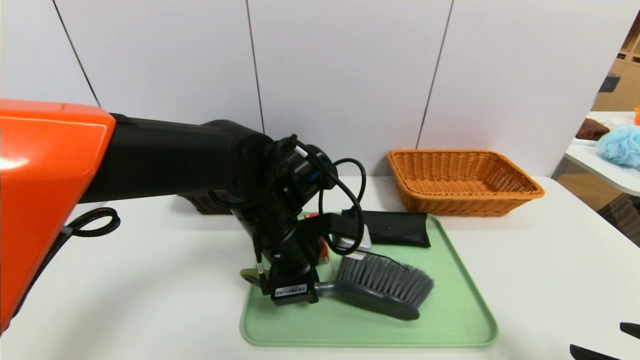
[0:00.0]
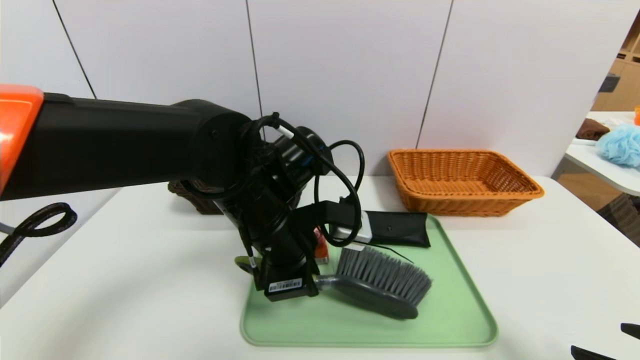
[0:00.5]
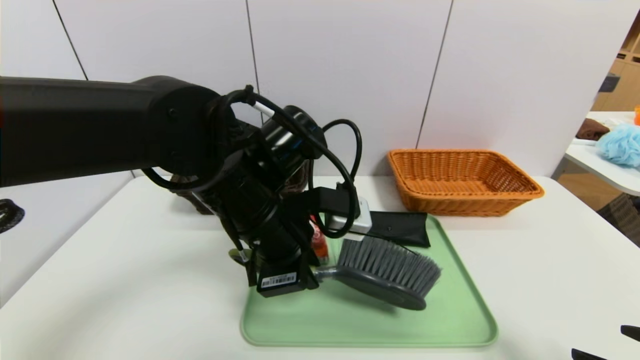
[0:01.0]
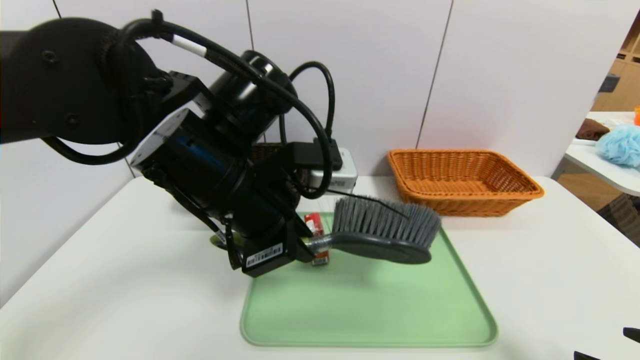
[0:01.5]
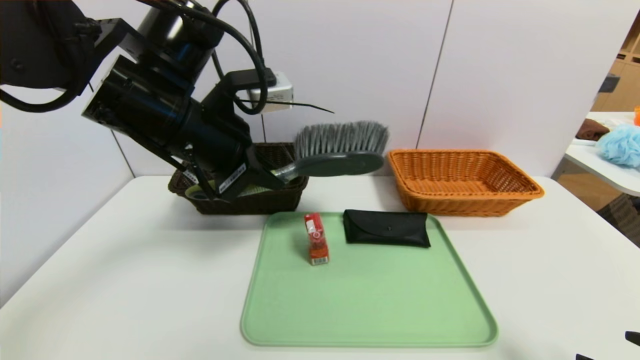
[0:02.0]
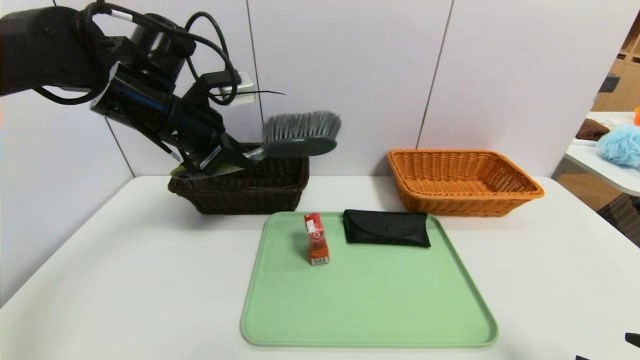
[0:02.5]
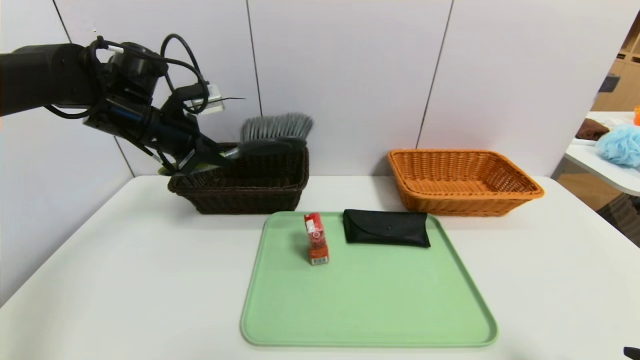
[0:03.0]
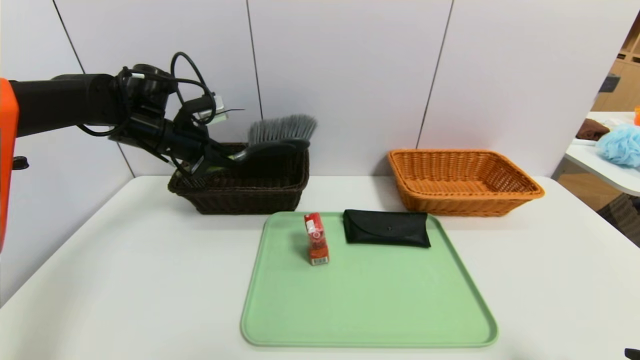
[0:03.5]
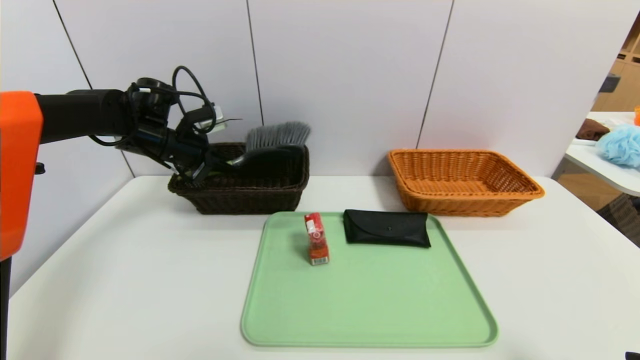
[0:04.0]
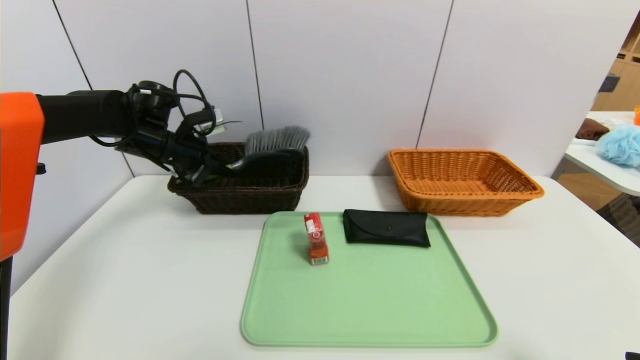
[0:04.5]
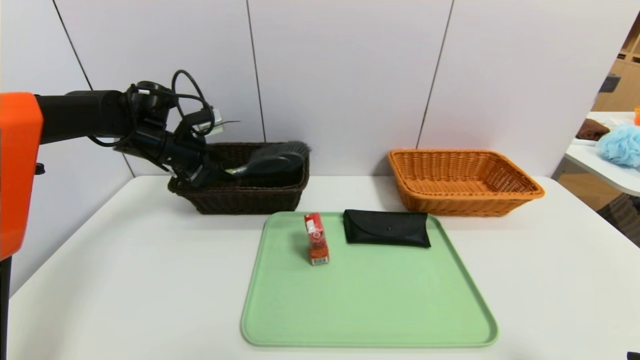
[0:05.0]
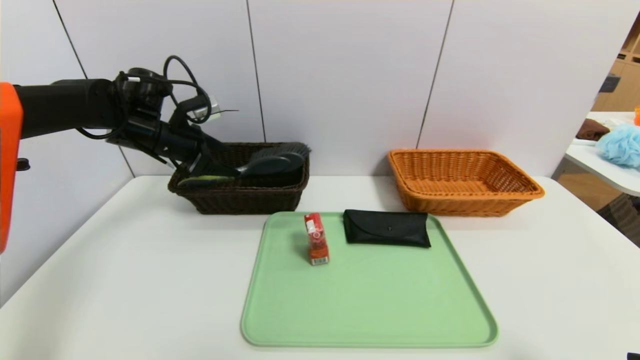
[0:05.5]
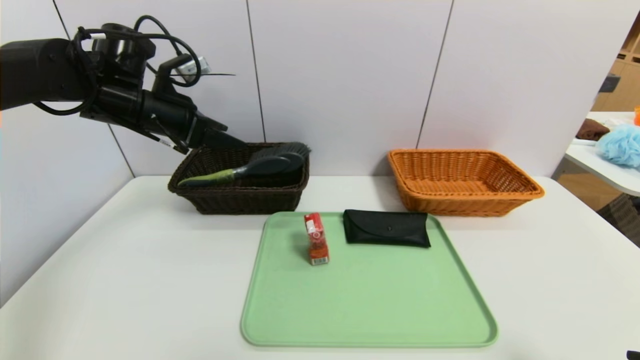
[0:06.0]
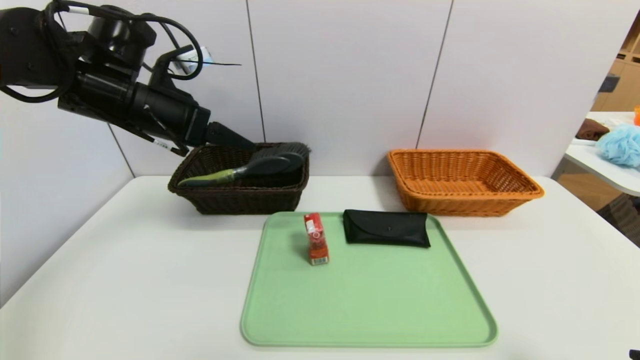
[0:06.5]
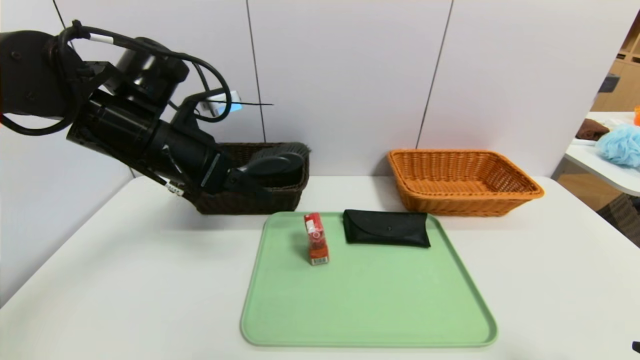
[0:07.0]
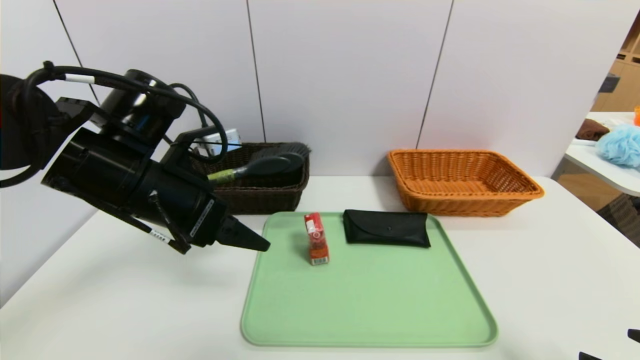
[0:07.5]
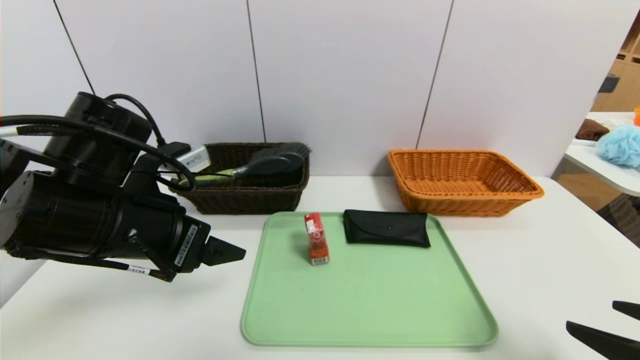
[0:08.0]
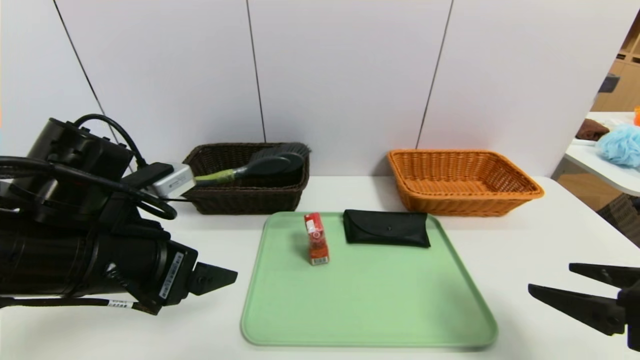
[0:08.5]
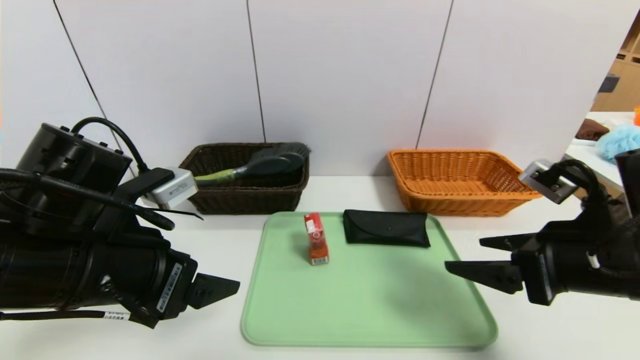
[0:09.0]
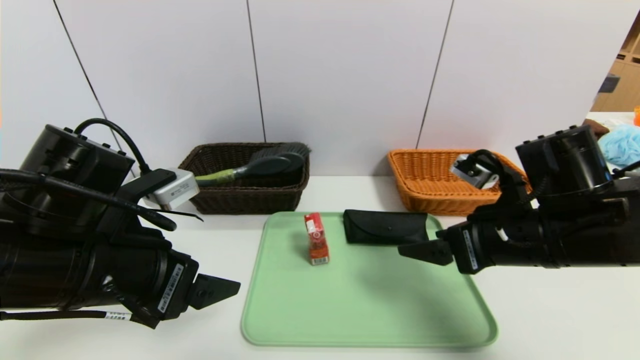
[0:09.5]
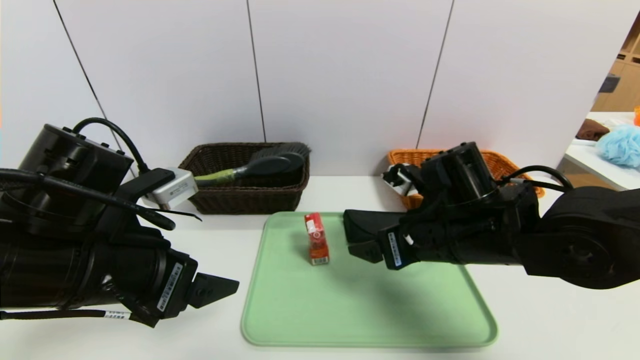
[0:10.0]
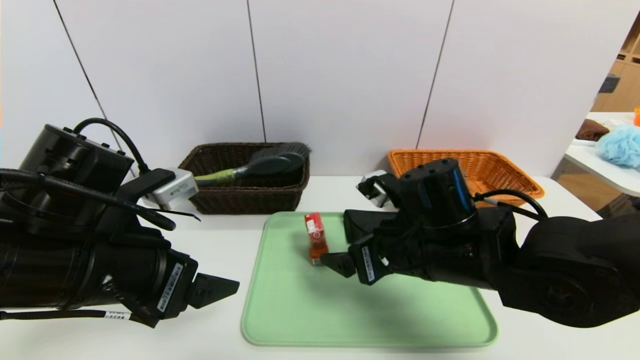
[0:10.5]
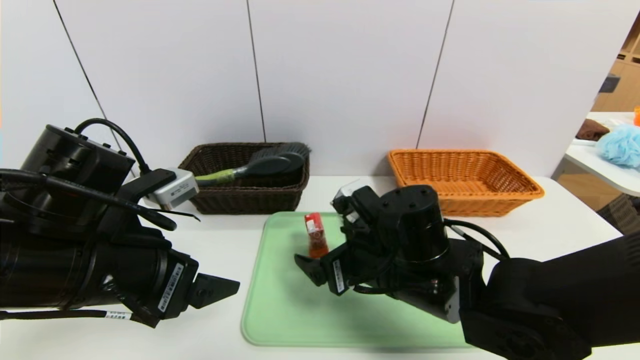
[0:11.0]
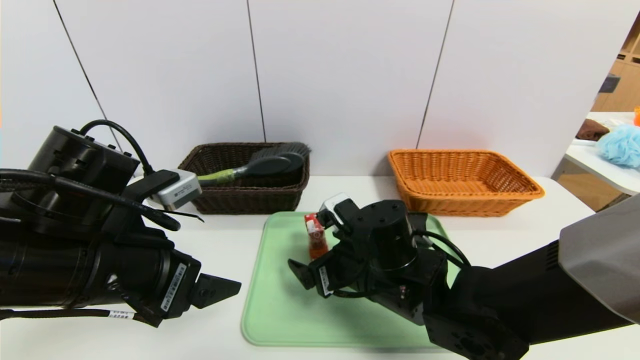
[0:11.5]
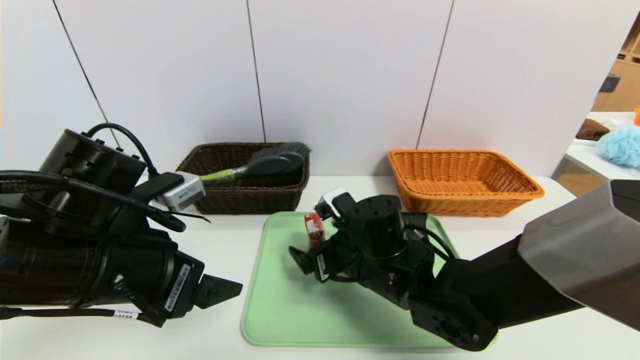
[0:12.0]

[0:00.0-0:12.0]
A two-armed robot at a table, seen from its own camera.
Task of the whole recording: place the food in the right basket with the right gripper, and place the non food items in the left basket with the left gripper.
Step, 0:00.0 to 0:05.0: Grasp the brush and put it in the left basket.
0:00.0 to 0:02.0: The left gripper shifts some 15 cm upward and to the left.
0:02.0 to 0:04.0: The left gripper shifts some 20 cm forward, to the left and downward.
0:04.0 to 0:06.0: The left gripper travels upward and backward by some 10 cm, and opens its fingers.
0:06.0 to 0:08.0: The right gripper ends up some 5 cm from where it was. Meanwhile the left gripper shifts roughly 15 cm backward.
0:08.0 to 0:10.0: The right gripper travels to the left and forward by roughly 25 cm.
0:10.0 to 0:12.0: The right gripper travels to the left and downward by roughly 10 cm.

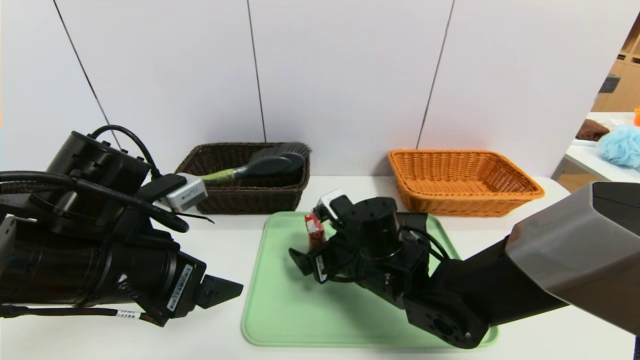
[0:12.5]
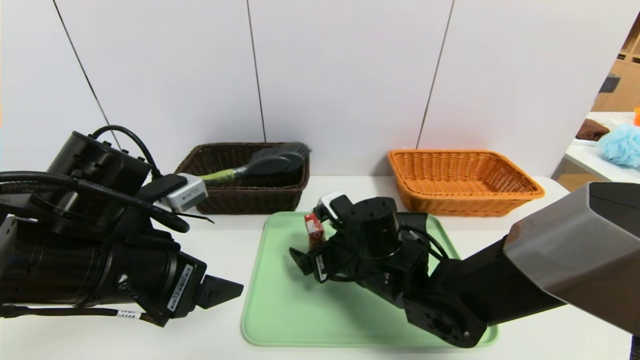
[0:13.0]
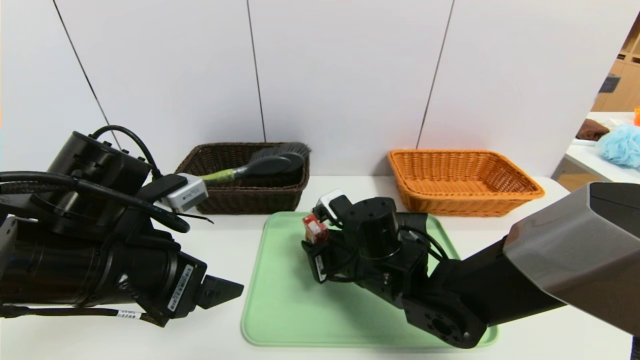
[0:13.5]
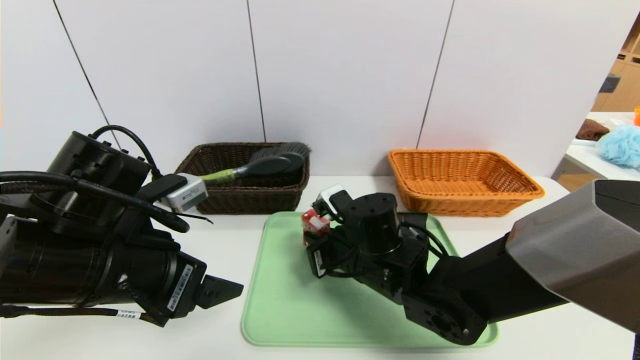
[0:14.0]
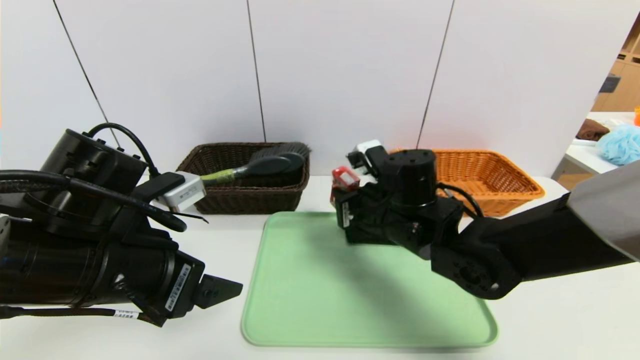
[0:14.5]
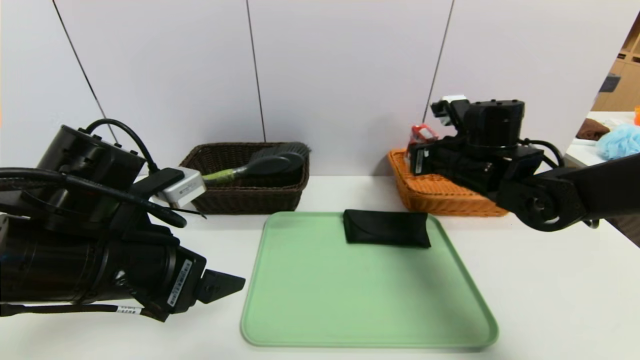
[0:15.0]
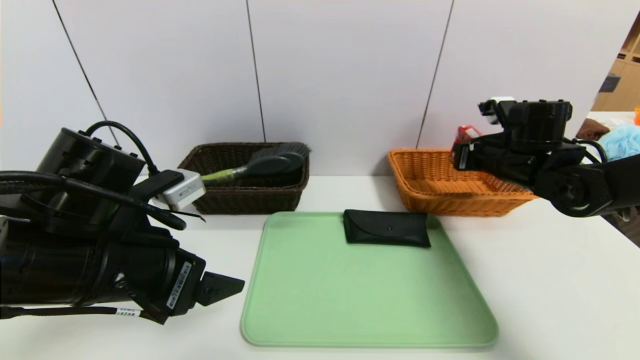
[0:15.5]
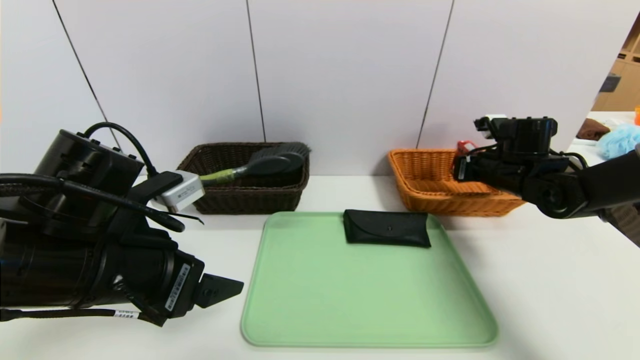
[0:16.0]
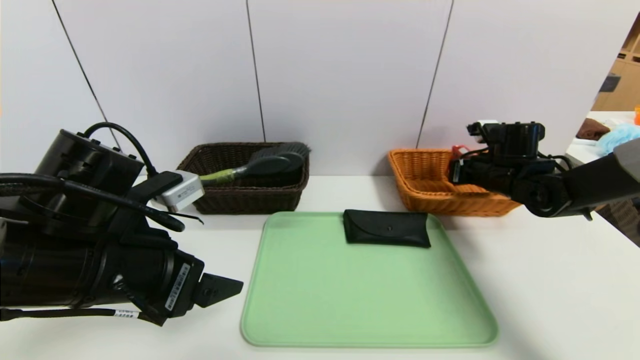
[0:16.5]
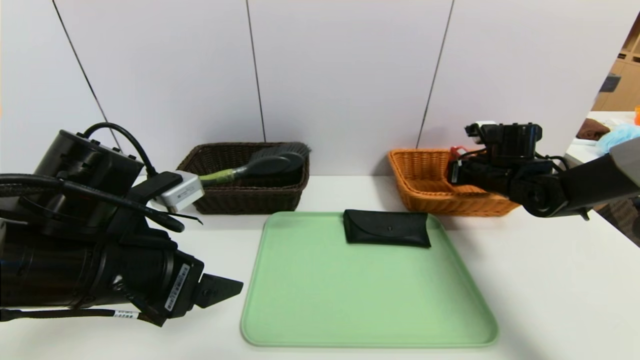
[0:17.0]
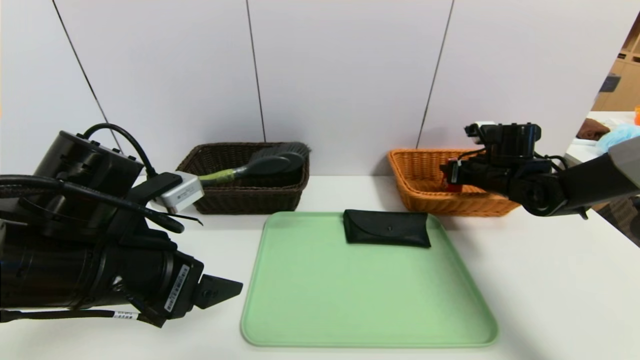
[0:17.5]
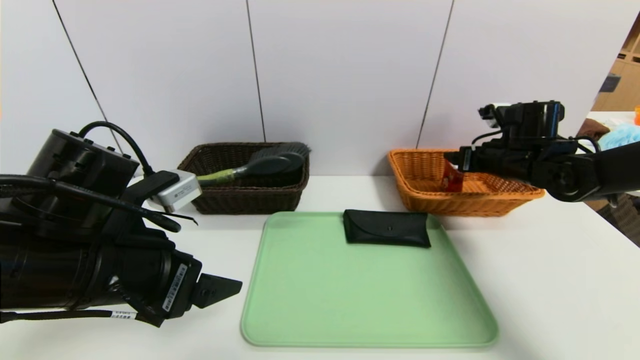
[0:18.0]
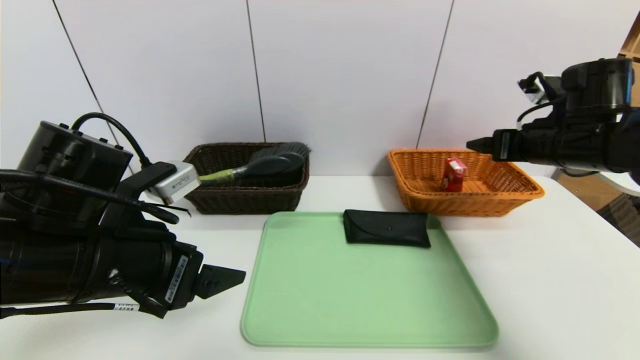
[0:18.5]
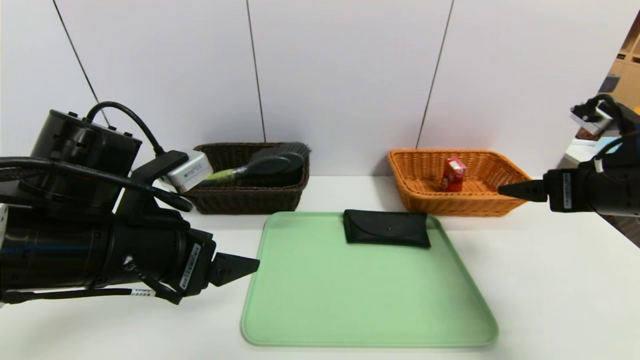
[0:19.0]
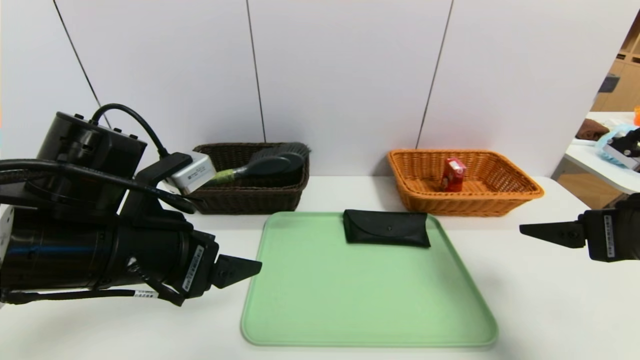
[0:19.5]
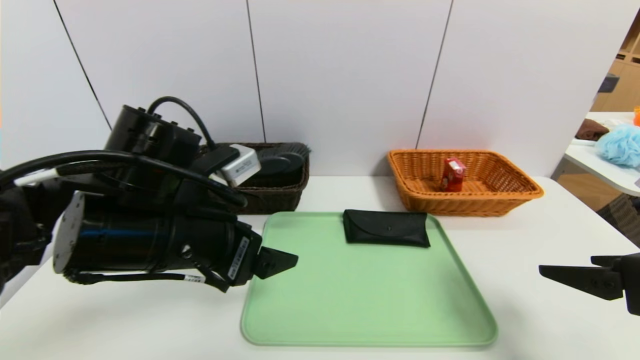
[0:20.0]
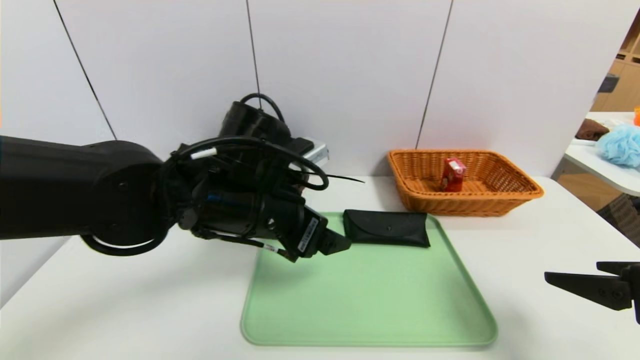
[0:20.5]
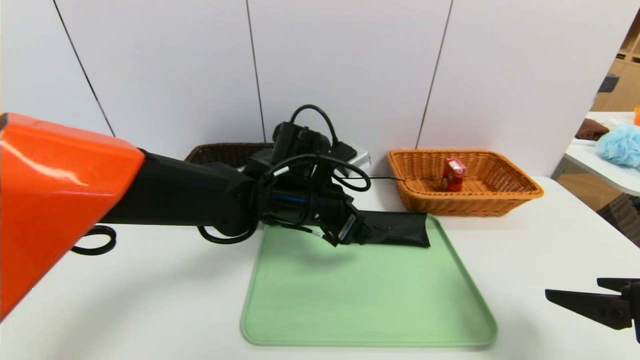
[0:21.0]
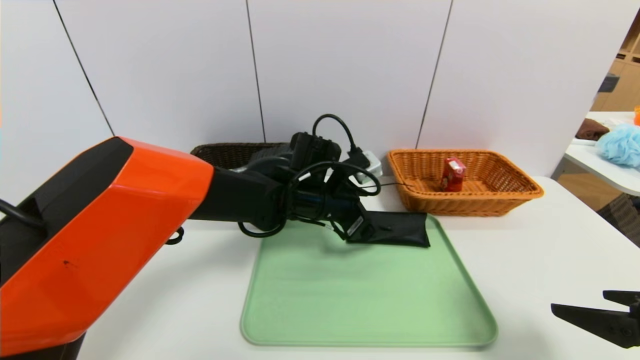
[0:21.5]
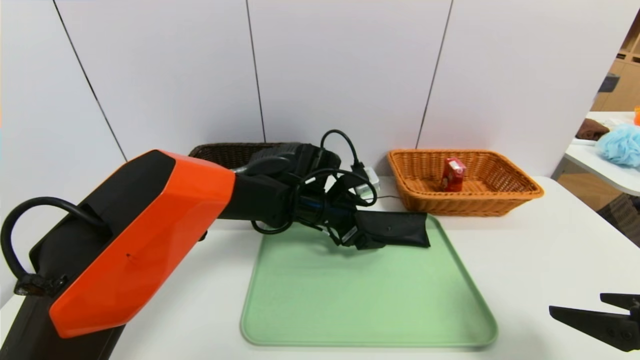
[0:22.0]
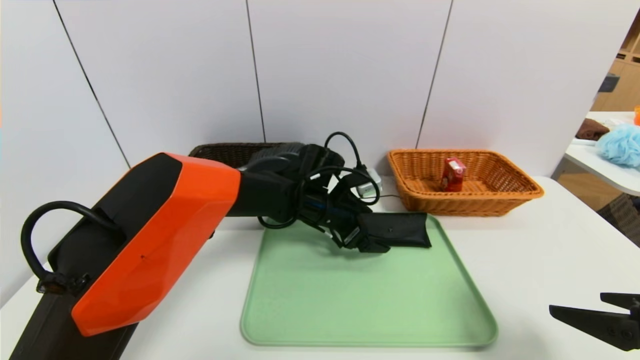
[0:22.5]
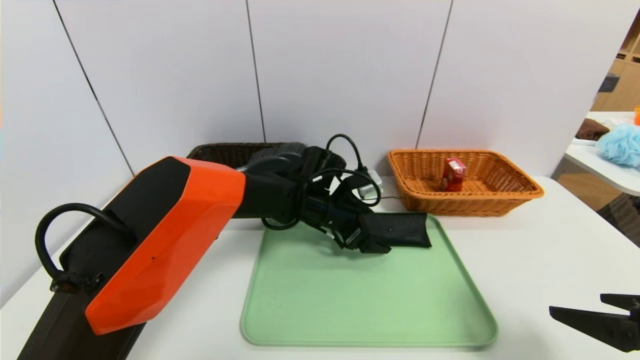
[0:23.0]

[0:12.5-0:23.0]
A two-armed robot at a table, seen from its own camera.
Task of the whole recording: place the food in the right basket with the right gripper, and place the non food items in the left basket with the left gripper.
Step, 0:12.5 to 0:17.5: Grasp the milk and put it in the right basket.
0:12.5 to 0:14.5: The right gripper moves upward, about 5 cm, and closes.
0:14.5 to 0:16.5: The right gripper heads to the right and forward, covering some 25 cm.
0:16.5 to 0:19.0: The right gripper moves backward and upward, approximately 20 cm, and opens its fingers.
0:19.0 to 0:21.0: The left gripper moves to the right and forward, about 20 cm; the right gripper moves backward, roughly 10 cm.
0:21.0 to 0:23.0: The left gripper shifts approximately 10 cm forward and downward.
